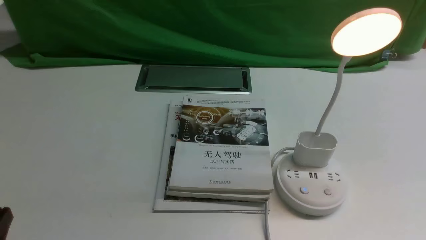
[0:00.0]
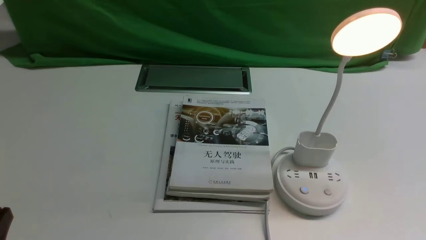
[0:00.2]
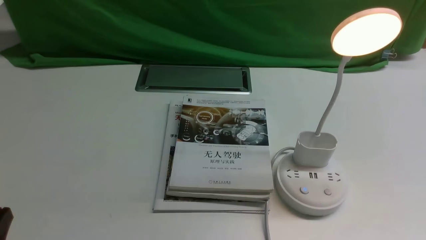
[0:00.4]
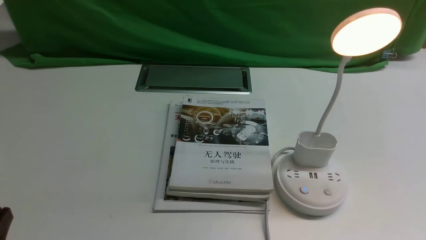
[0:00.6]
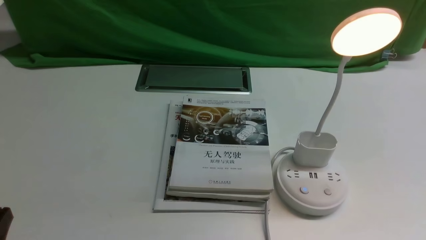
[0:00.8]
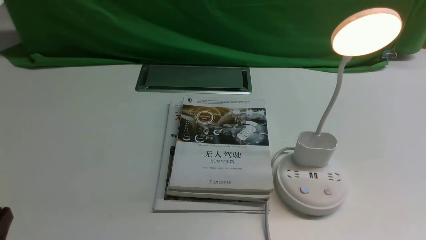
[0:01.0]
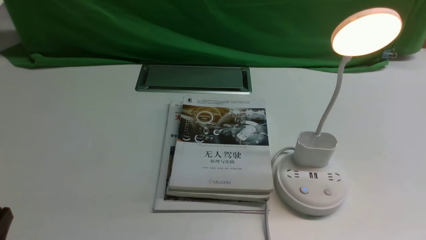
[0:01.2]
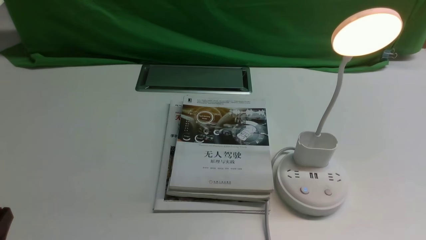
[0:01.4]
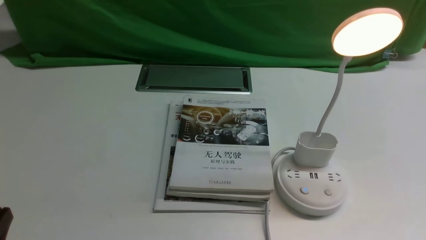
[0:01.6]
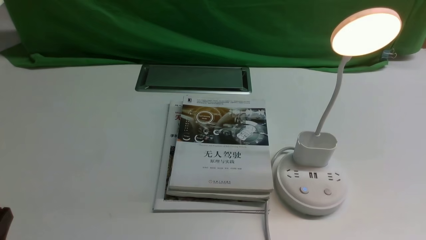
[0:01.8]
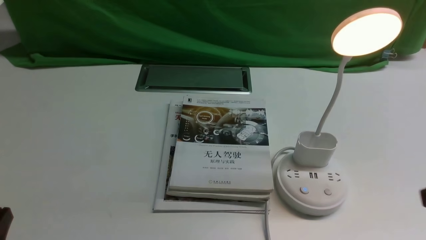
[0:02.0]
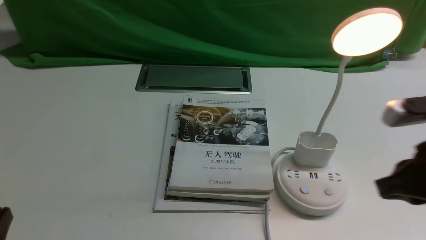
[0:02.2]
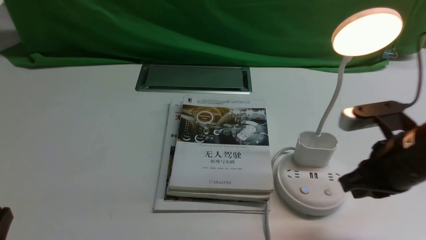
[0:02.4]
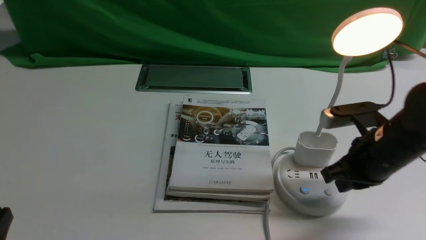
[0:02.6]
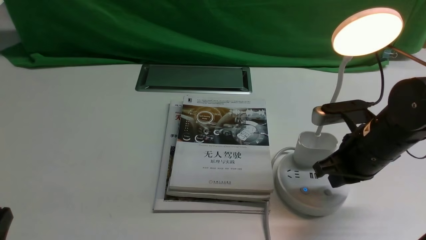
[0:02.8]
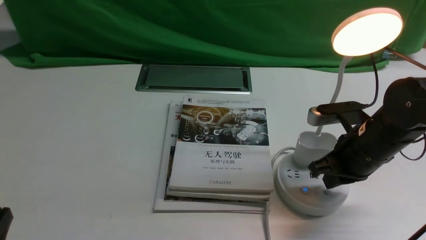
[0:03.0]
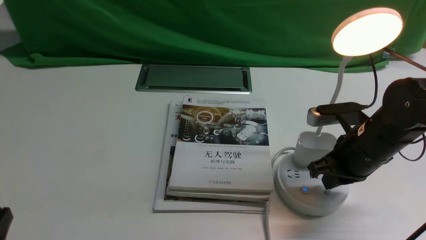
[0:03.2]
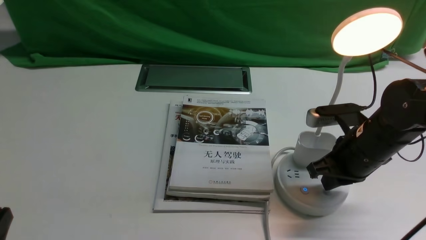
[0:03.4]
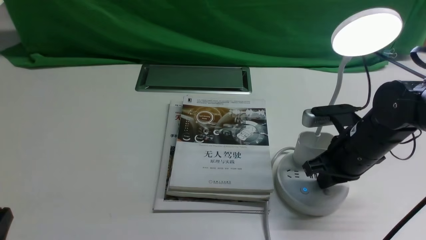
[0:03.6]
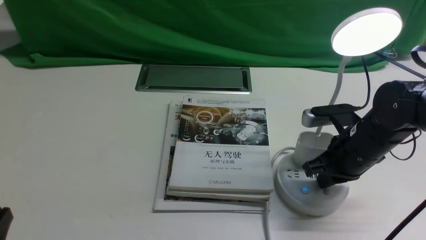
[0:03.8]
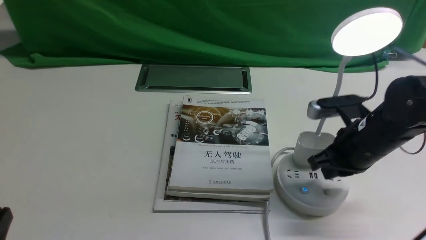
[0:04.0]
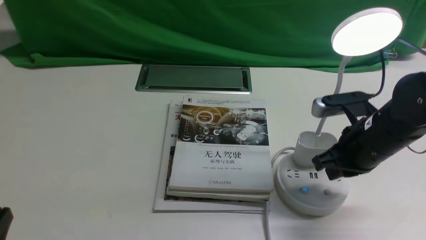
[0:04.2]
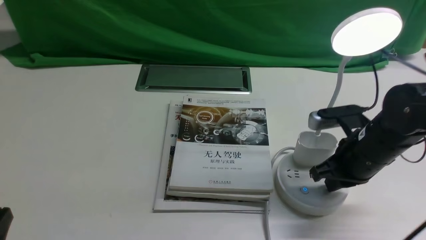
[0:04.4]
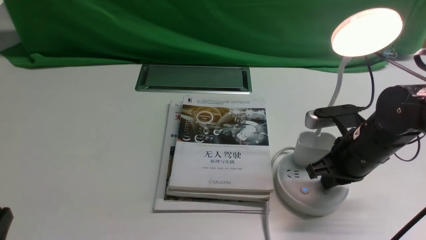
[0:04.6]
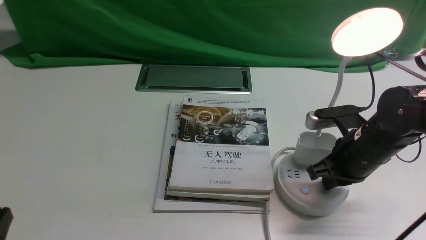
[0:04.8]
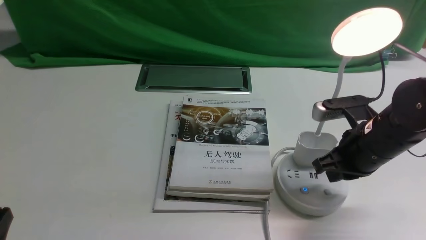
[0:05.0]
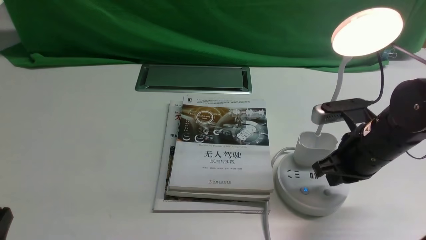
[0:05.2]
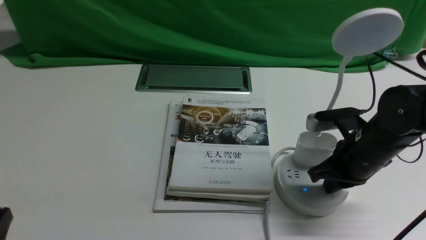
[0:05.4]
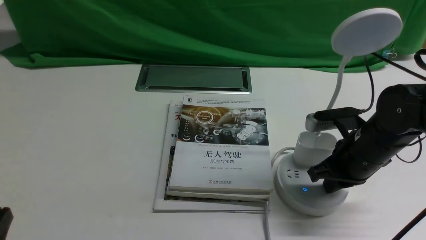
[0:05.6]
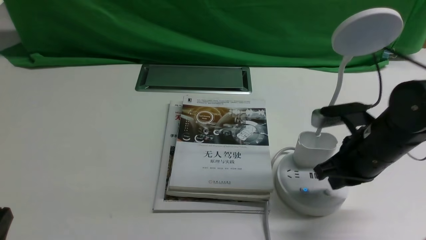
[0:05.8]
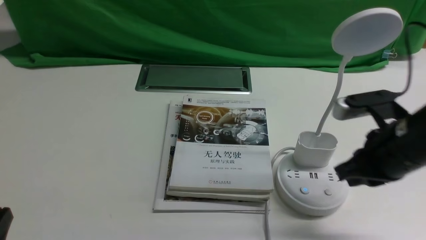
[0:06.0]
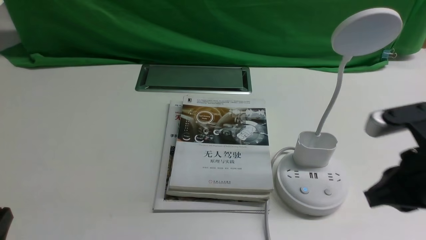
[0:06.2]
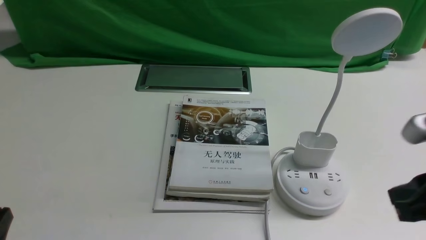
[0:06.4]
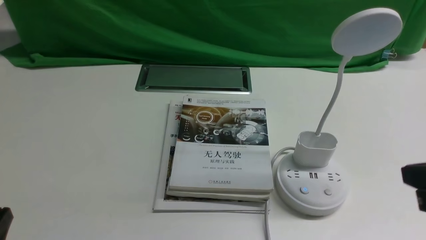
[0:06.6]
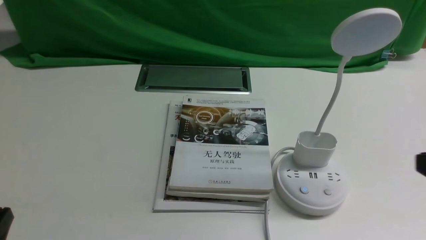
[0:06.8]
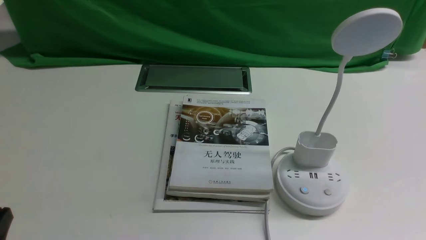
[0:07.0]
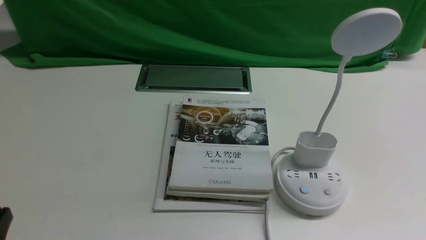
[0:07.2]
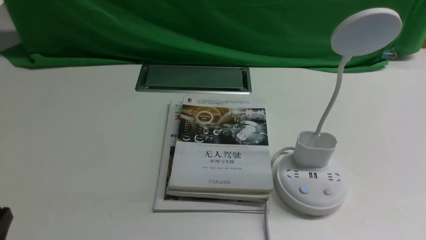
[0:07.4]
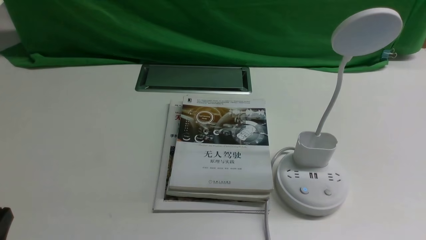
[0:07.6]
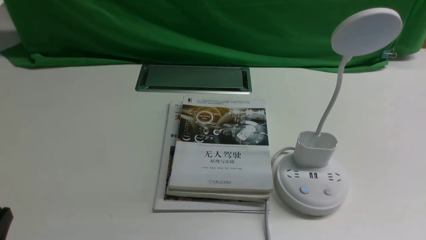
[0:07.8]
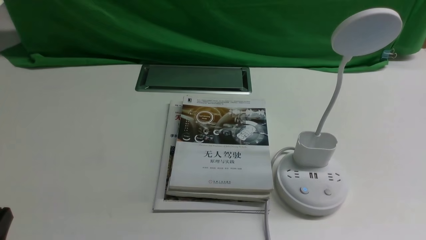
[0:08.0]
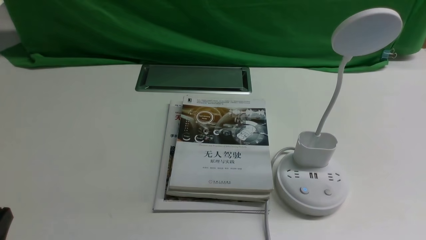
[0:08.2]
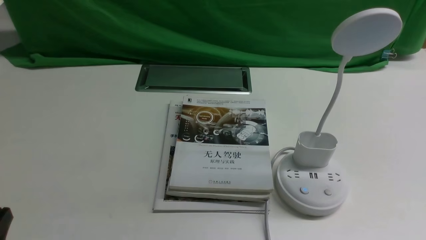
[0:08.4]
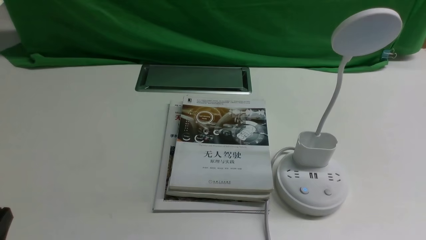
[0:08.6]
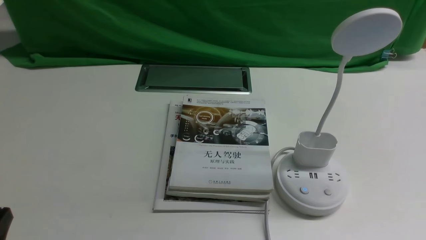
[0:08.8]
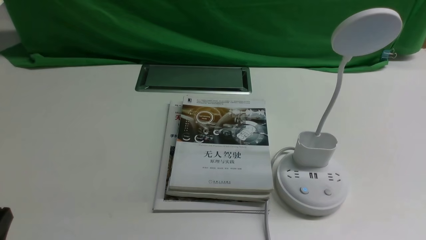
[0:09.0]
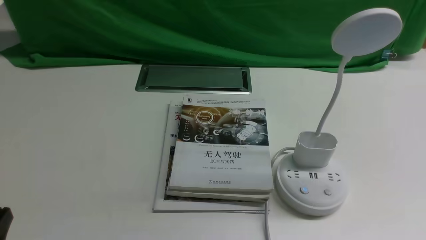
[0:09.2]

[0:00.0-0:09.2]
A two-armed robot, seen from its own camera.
Task of the whole recording: turn off the desk lamp on the white desktop by hand.
Step, 0:00.0 to 0:05.8: use the right arm to press the button switch on the lamp holder.
0:01.6 to 0:03.0: The right gripper travels forward and to the left by some 25 cm.
0:03.0 to 0:04.6: The right gripper closes its fingers.
0:04.6 to 0:06.2: The right gripper moves backward and upward, about 10 cm.
0:06.2 to 0:07.6: The right gripper heads backward, to the right and downward, covering some 20 cm.
0:07.6 to 0:09.2: Neither gripper changes place.

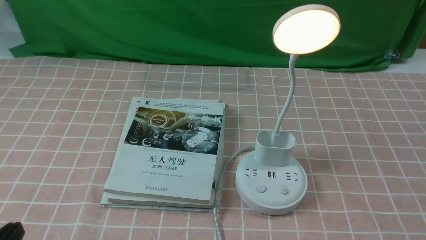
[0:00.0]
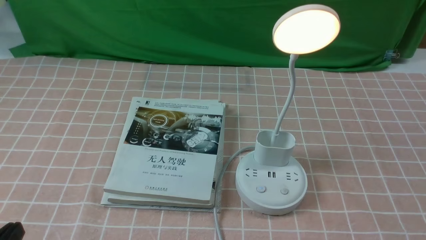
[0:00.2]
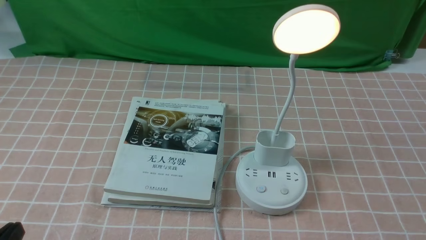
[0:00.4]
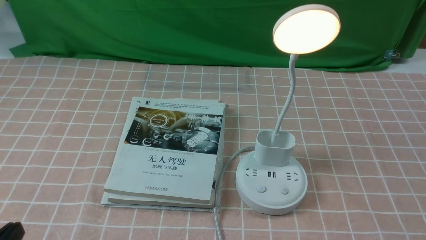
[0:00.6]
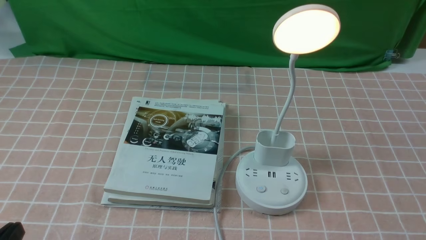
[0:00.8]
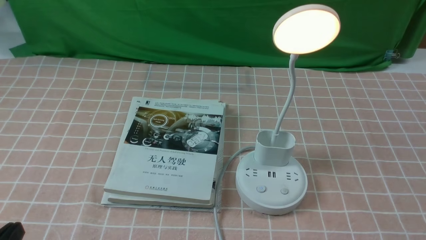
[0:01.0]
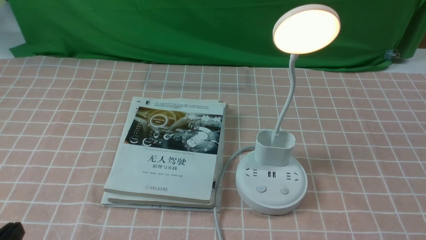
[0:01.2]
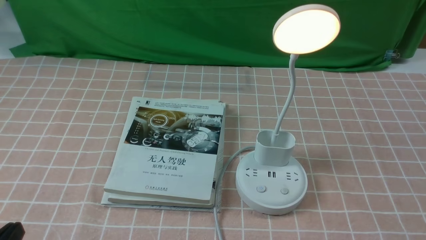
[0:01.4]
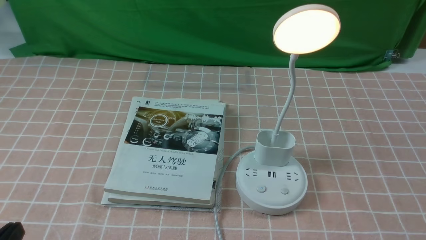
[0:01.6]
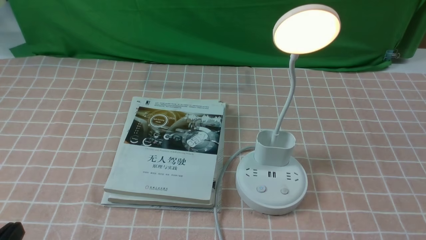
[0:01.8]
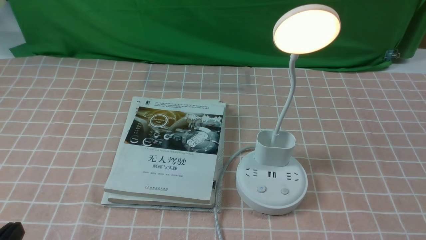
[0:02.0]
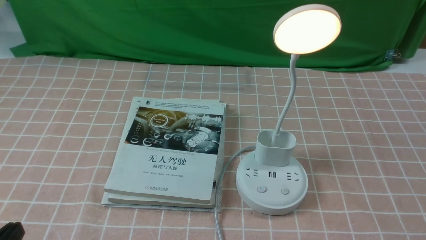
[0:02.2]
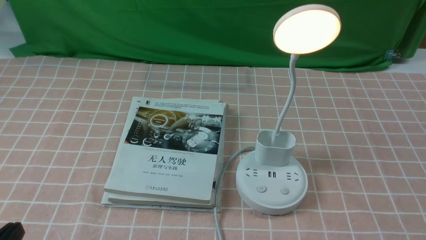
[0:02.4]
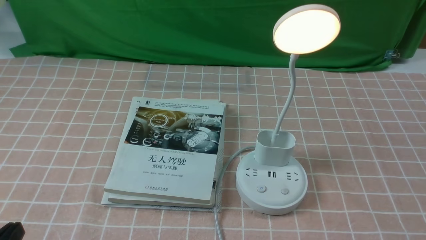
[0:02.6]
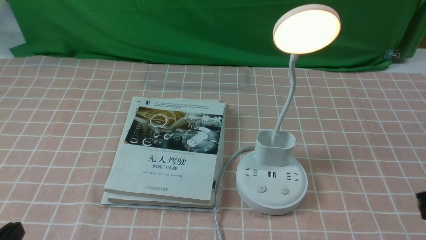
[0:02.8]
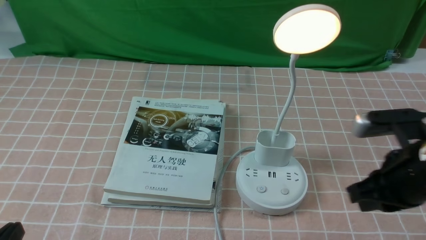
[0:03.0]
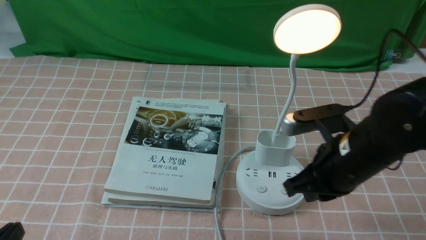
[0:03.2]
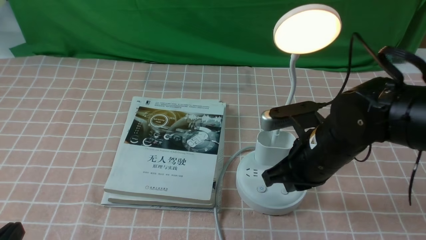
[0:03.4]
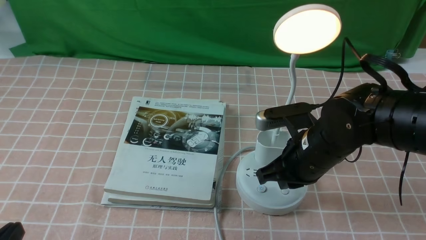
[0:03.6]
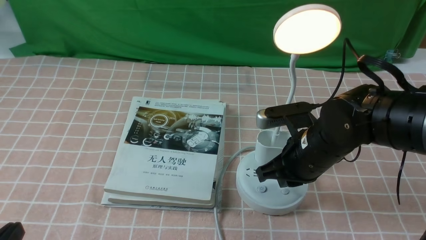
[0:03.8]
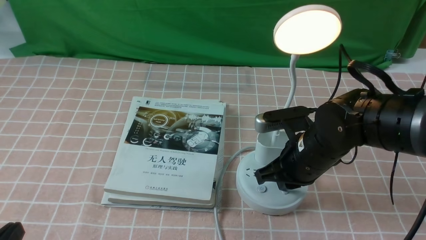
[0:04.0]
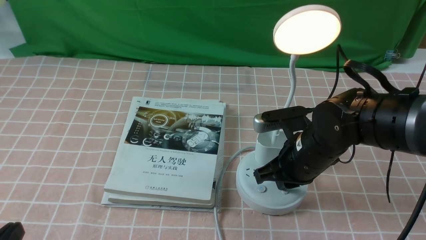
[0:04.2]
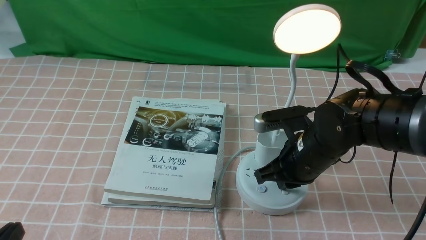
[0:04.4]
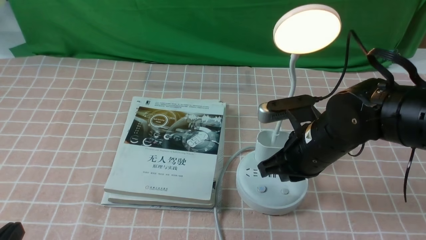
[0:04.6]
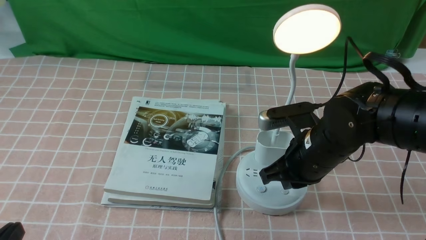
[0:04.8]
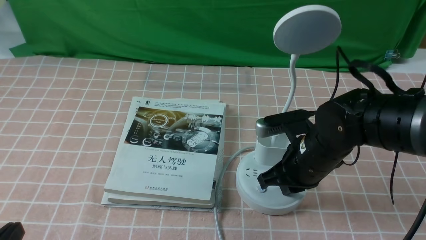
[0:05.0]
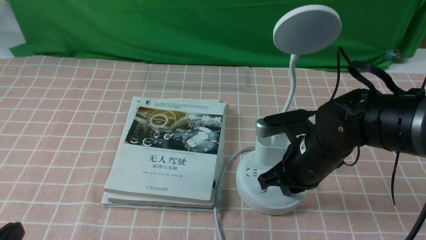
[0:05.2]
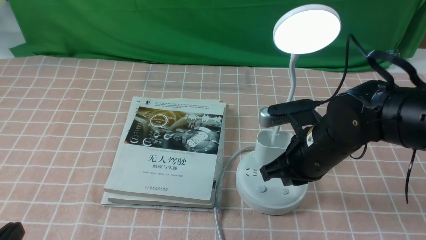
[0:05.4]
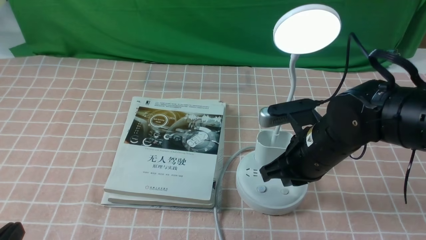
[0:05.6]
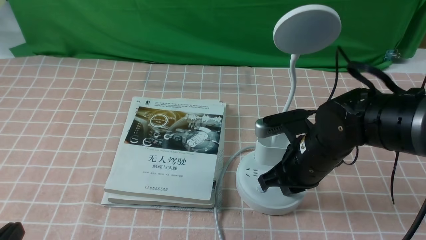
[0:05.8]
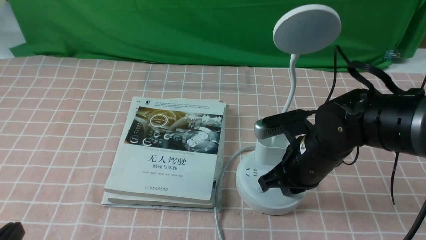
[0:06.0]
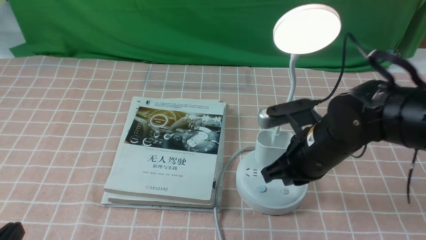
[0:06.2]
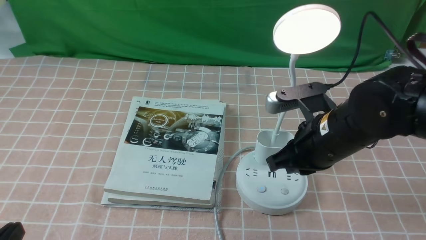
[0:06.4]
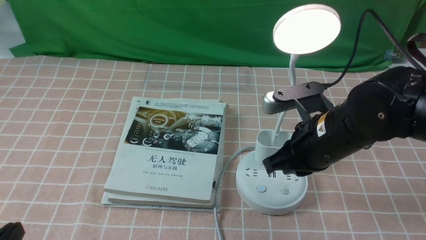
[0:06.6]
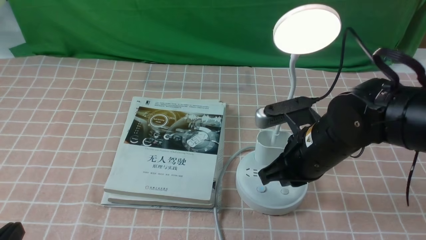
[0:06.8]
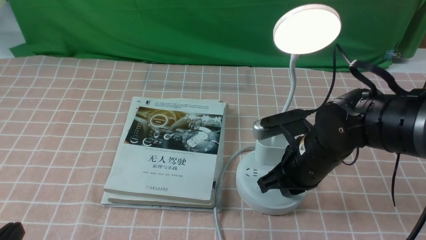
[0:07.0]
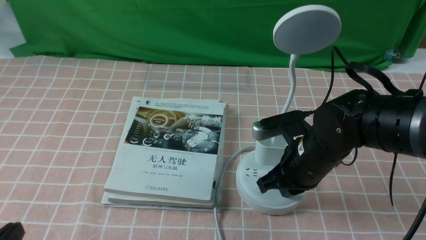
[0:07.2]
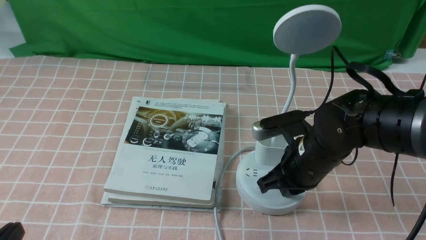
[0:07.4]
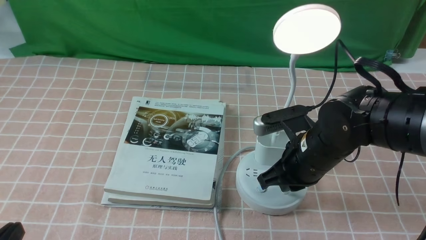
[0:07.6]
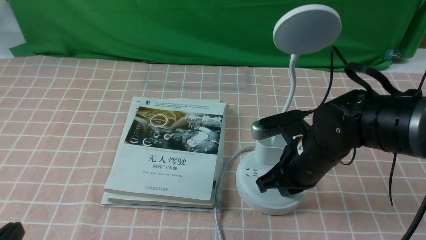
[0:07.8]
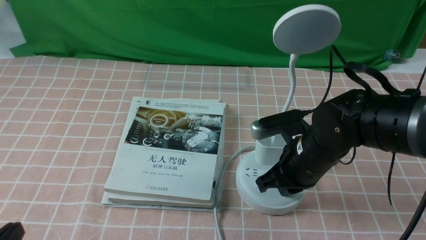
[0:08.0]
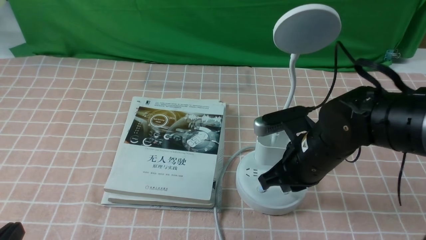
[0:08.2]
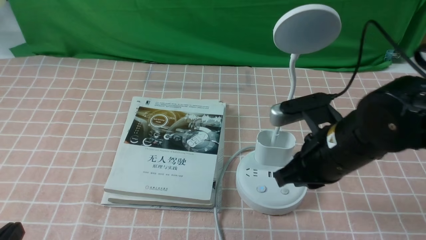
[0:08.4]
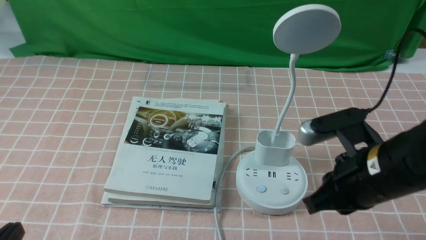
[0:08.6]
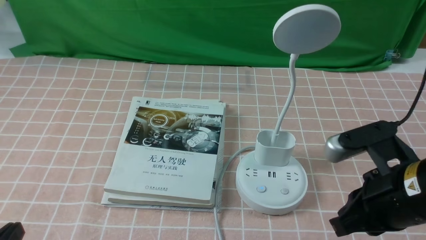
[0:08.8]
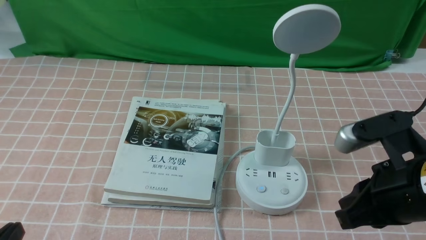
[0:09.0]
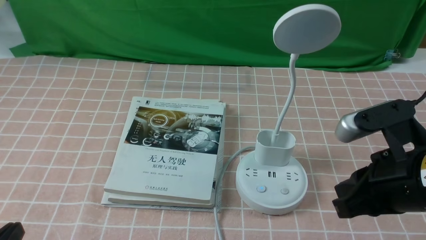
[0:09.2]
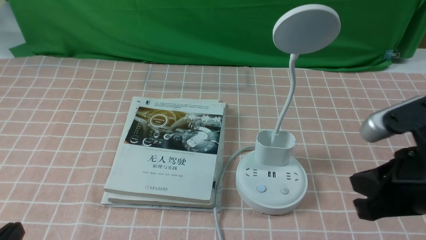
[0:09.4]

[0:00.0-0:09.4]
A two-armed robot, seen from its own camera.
Task of the whole recording: turn off the table lamp on the pink coffee tablecloth by hand.
Step, 0:00.0 to 0:08.2: use the right arm to press the button switch on the lamp holder.
0:01.6 to 0:03.2: The right gripper shifts about 25 cm forward and to the left, and closes its fingers.
0:03.2 to 0:04.8: The right gripper ends up roughly 5 cm from where it was.
0:04.8 to 0:07.8: The grippers stay close to where they were, moving slightly.
0:07.8 to 0:09.4: The right gripper travels backward, to the right and upward by roughly 20 cm.
